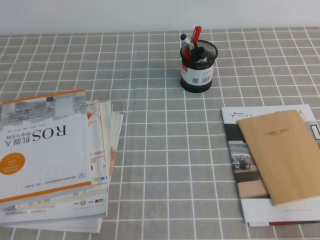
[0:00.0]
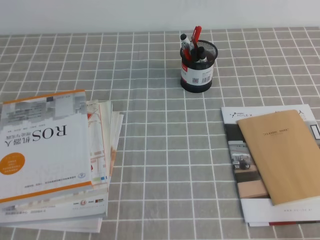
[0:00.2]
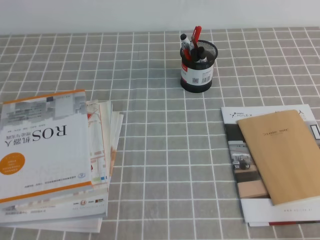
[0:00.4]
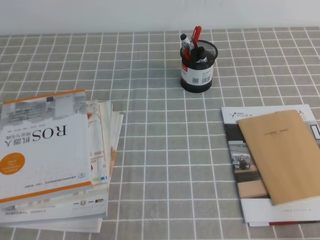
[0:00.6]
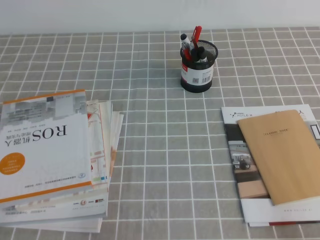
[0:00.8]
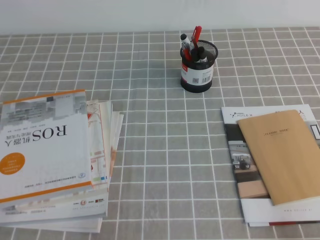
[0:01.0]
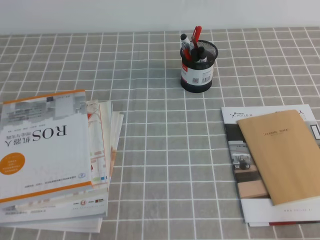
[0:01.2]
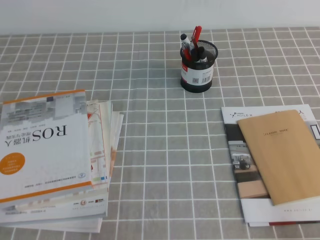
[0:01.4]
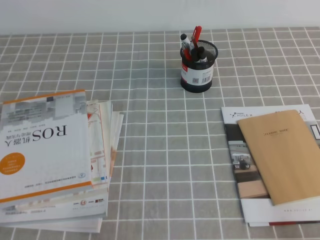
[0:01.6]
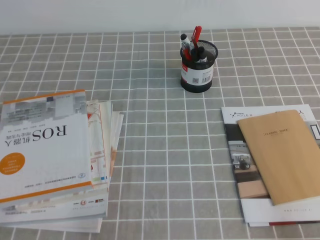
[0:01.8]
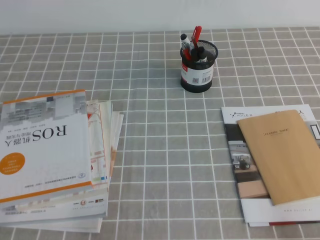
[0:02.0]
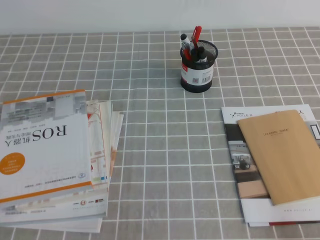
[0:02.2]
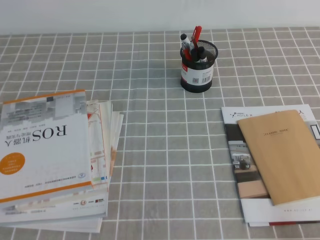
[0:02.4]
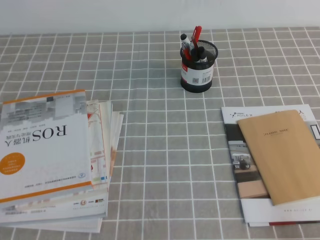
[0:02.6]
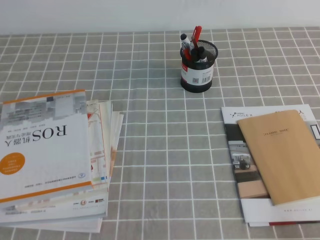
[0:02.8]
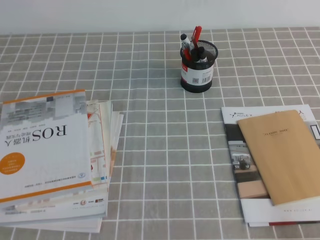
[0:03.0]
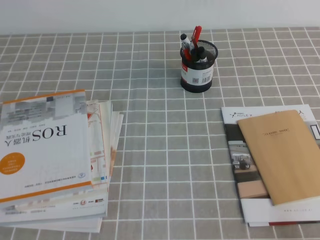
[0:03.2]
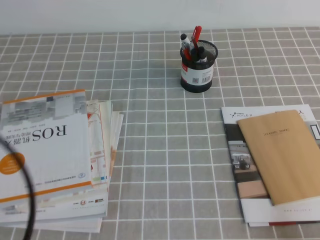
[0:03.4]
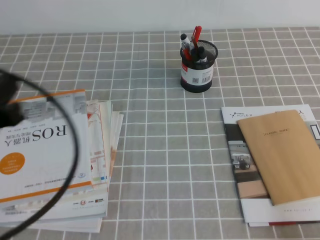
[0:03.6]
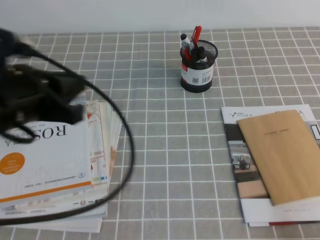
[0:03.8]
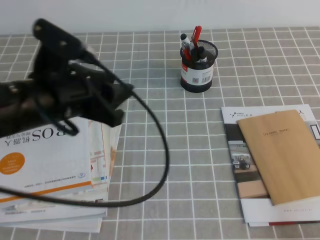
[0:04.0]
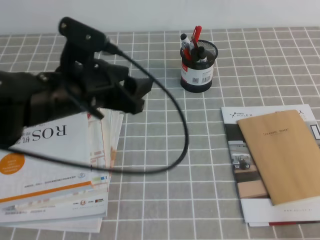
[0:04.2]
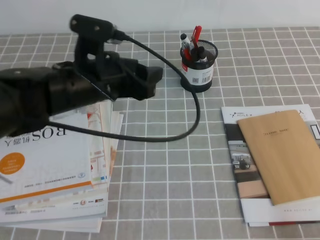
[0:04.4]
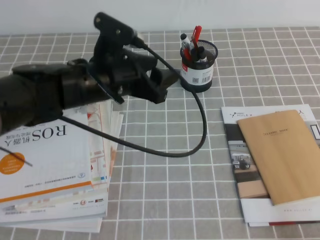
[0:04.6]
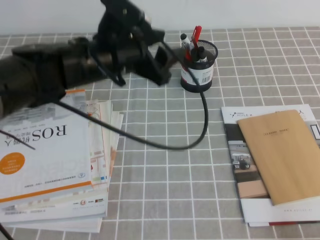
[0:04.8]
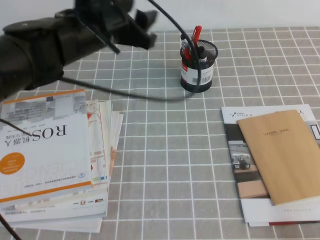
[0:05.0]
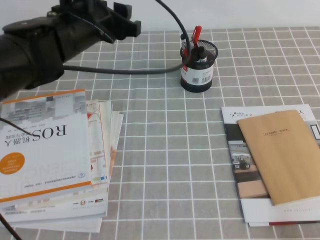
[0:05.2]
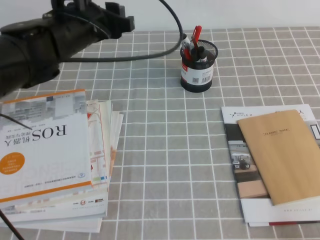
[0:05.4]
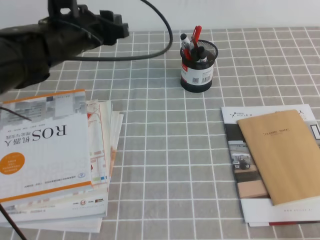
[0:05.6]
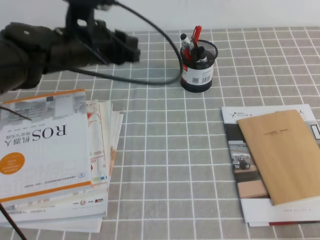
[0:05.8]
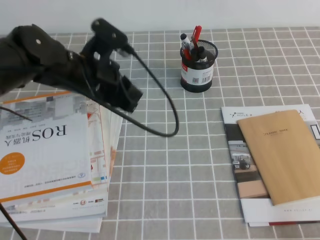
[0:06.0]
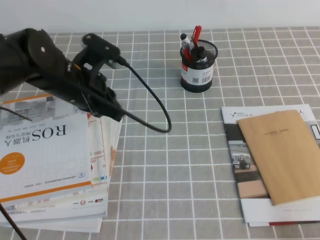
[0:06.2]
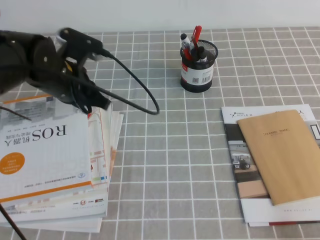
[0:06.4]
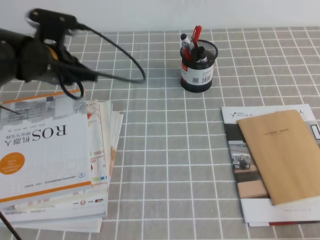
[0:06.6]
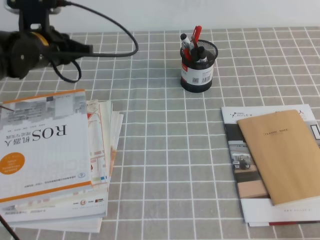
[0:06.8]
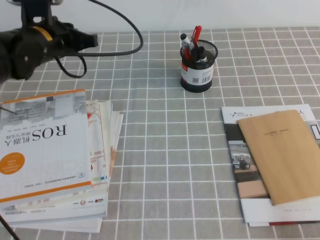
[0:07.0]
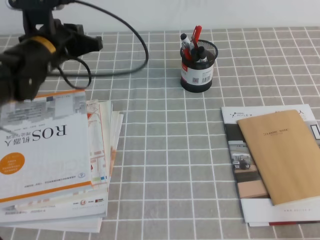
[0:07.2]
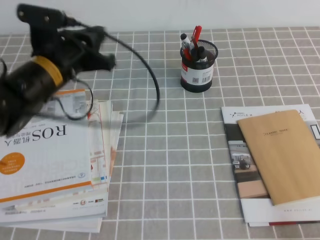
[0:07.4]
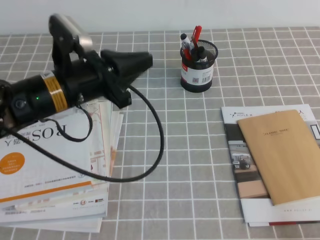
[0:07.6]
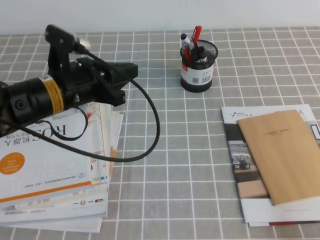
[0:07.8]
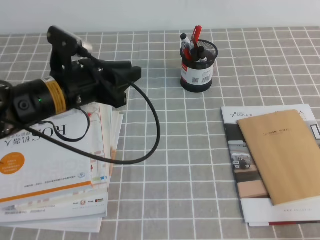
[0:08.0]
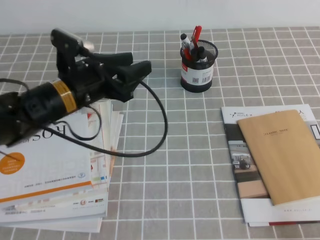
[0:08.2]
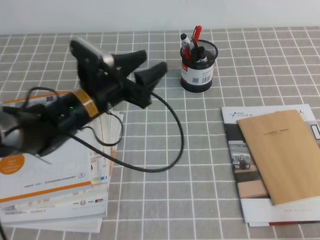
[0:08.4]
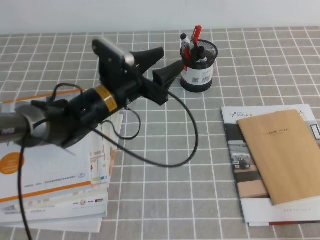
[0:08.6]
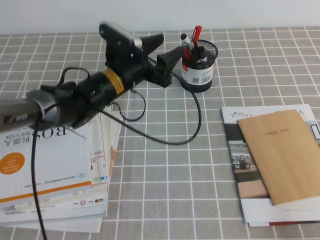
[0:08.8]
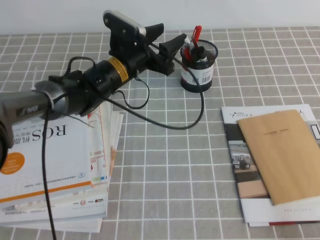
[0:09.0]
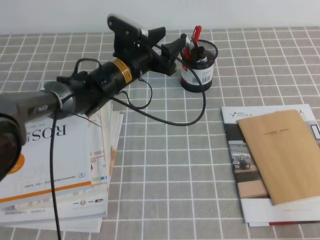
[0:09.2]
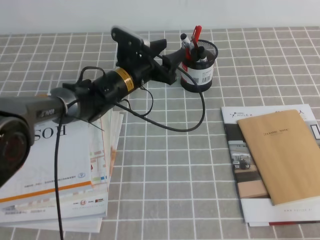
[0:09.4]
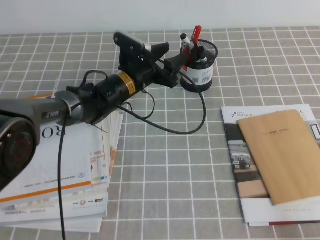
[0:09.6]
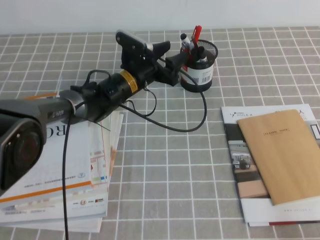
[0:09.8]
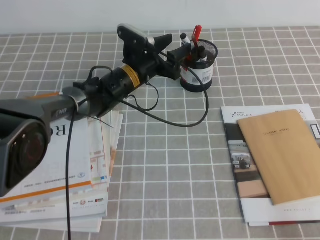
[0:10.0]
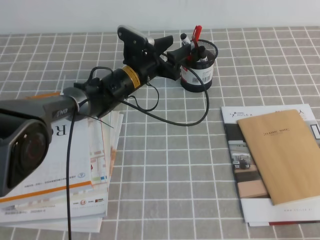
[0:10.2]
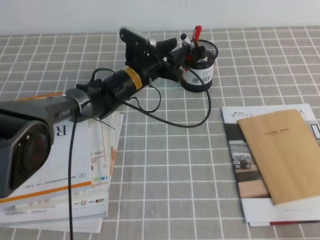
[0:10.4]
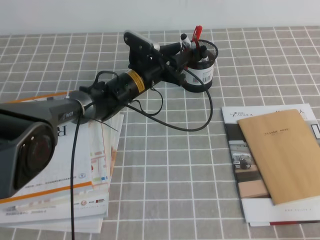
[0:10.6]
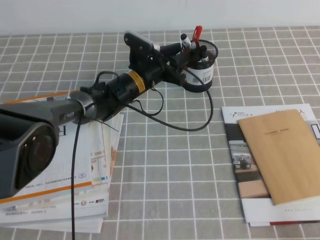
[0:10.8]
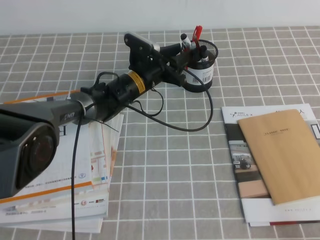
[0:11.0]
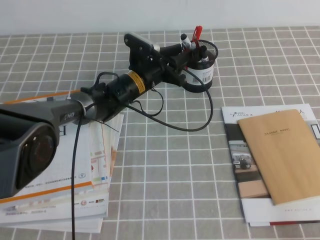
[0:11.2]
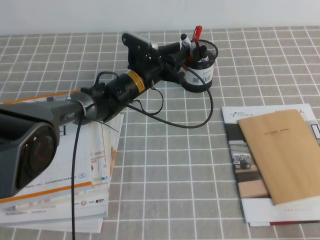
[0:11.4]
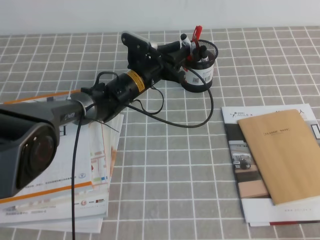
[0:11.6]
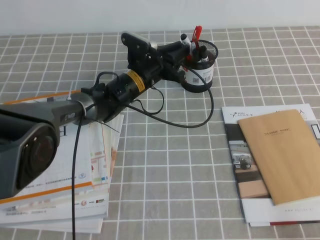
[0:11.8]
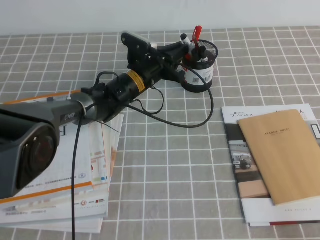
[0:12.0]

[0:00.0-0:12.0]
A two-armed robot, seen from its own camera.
0.0 to 1.6 s: The two grippers keep their place.
3.0 to 4.4 s: The left gripper heads forward and to the right, covering approximately 30 cm, and opens.
4.4 to 6.0 s: The left gripper travels forward by roughly 5 cm, and closes up.
7.6 to 9.0 s: The left gripper moves forward, to the right and downward, some 15 cm, and opens its fingers.
9.0 to 10.4 s: The left gripper shifts by some 5 cm.
10.4 to 12.0 s: The left gripper closes up.

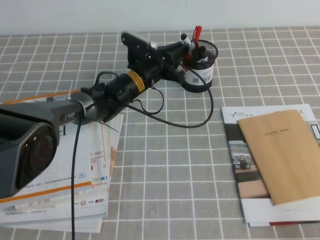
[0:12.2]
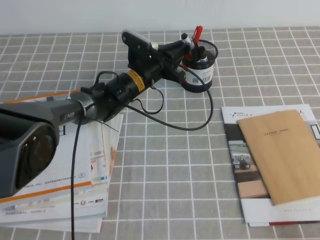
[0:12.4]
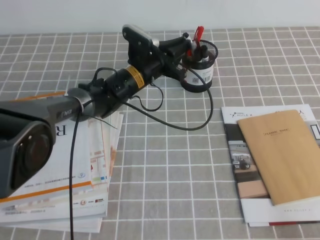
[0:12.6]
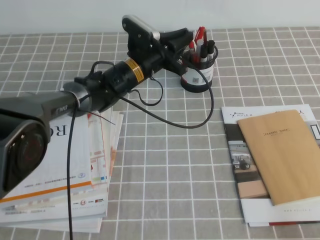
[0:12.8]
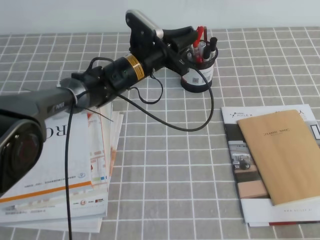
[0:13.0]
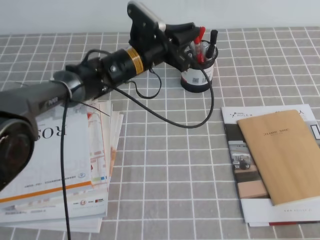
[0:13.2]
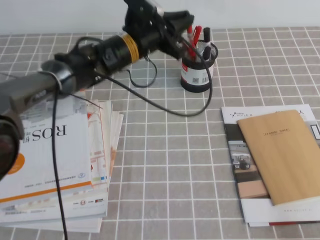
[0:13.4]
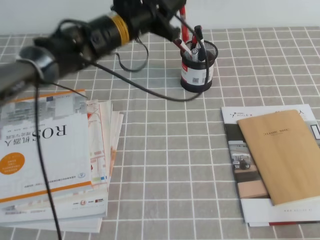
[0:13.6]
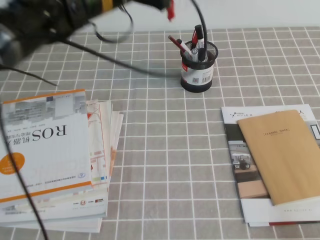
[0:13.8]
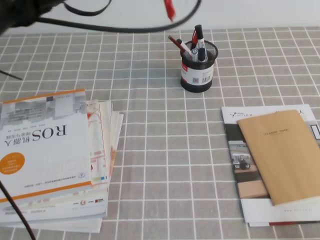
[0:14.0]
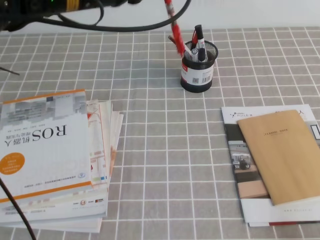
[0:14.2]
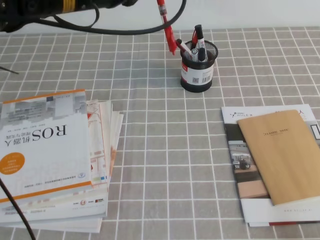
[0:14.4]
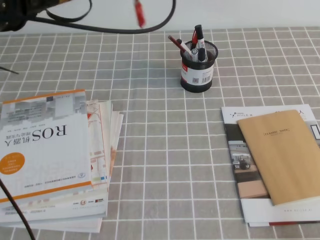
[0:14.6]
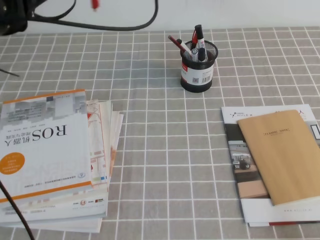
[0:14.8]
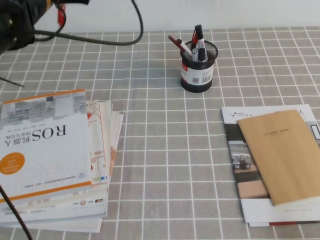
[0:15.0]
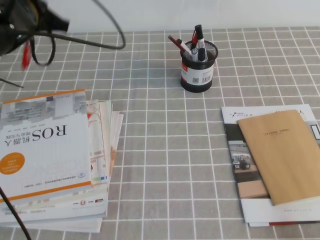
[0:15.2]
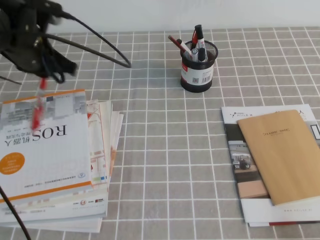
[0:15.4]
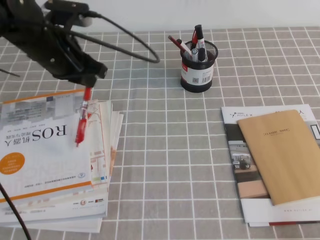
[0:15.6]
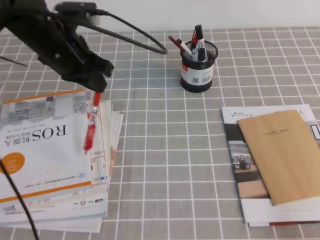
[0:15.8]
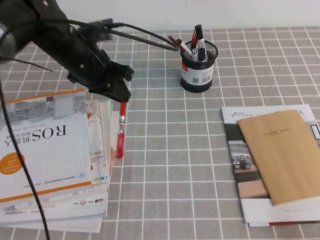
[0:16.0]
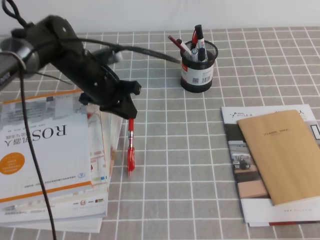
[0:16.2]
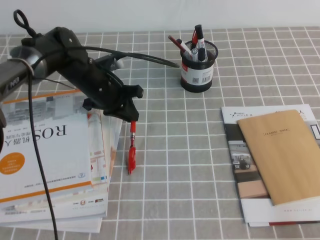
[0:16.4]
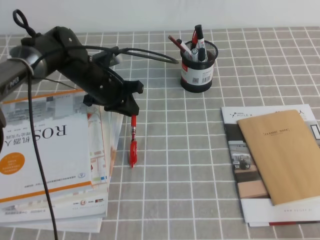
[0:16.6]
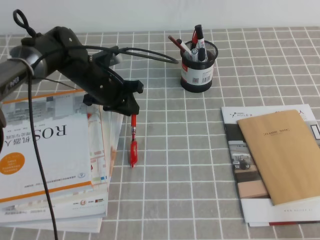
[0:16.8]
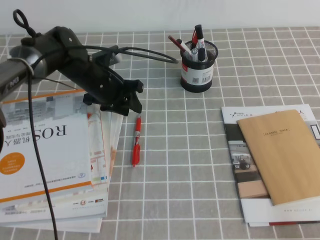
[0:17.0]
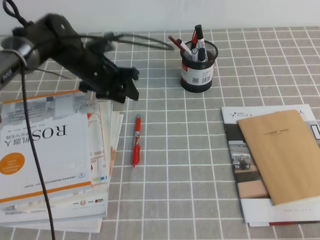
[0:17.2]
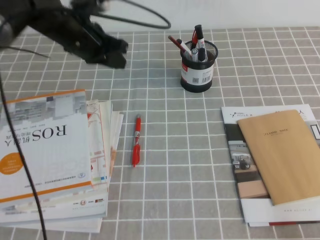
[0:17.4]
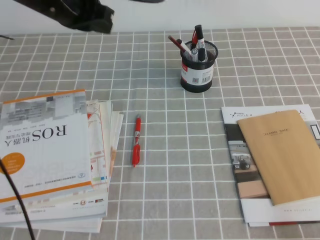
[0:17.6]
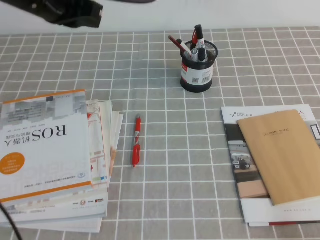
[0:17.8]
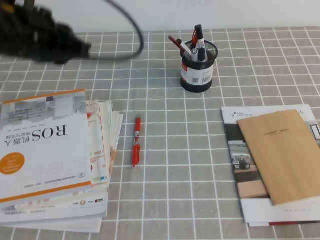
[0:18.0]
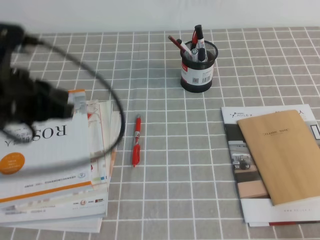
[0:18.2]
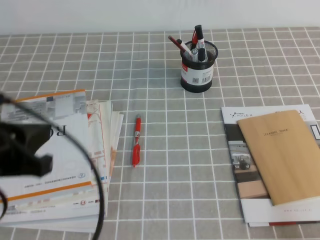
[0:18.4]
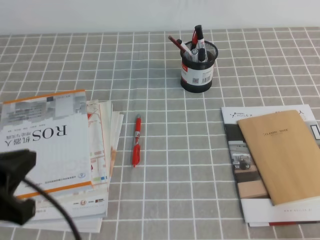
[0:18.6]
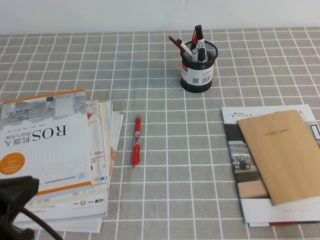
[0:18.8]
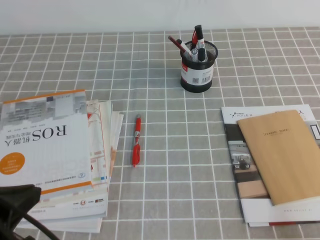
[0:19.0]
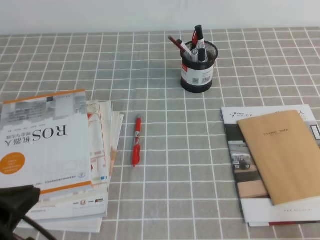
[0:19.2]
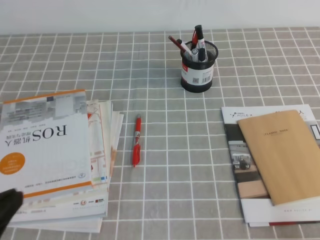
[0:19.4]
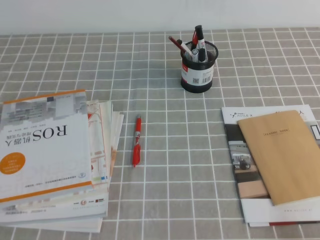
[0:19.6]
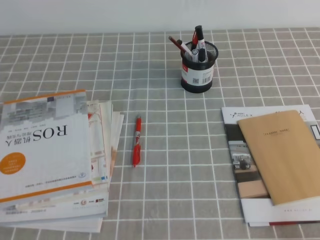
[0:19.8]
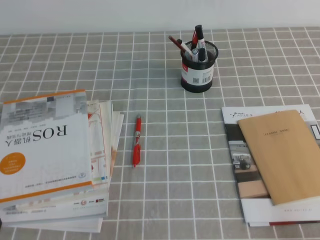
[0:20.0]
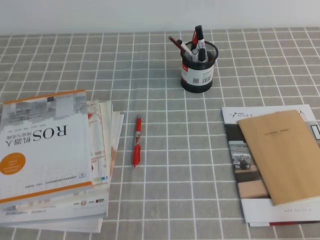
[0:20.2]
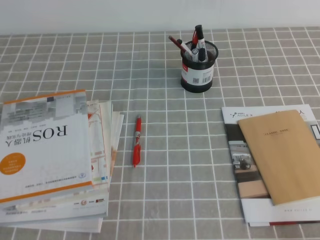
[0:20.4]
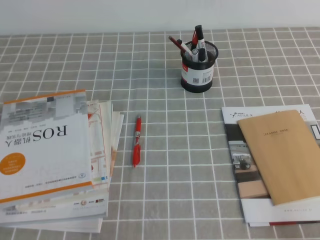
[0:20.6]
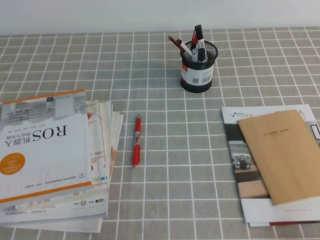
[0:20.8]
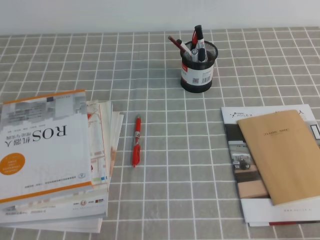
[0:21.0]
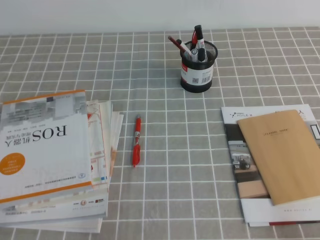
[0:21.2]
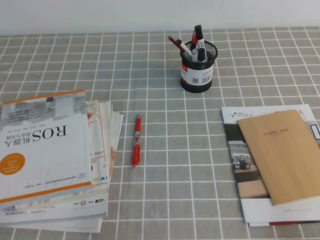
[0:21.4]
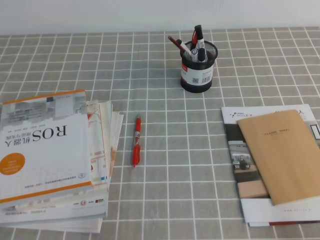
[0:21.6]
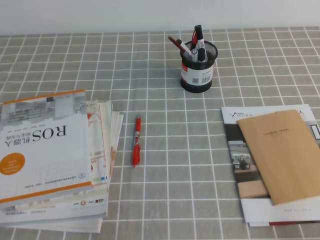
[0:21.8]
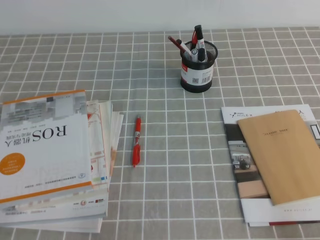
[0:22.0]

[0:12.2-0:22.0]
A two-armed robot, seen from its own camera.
Step, 12.2 to 22.0 s: Pick up the pen from the pen holder.
12.2 to 13.6 s: The left gripper heads upward, covering about 15 cm.
13.6 to 15.0 s: The left gripper shifts roughly 15 cm to the left and upward.
15.0 to 16.4 s: The left gripper heads downward, covering about 15 cm.
16.4 to 17.8 s: The left gripper travels upward by approximately 20 cm, and opens, then closes again.
17.8 to 19.2 s: The left gripper moves backward, some 30 cm.
19.2 to 20.6 s: The left gripper is displaced downward by roughly 10 cm.
20.6 to 22.0 s: Neither gripper changes place.

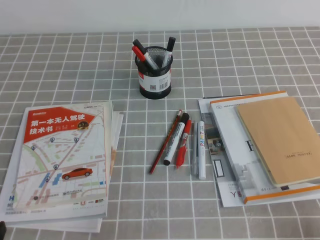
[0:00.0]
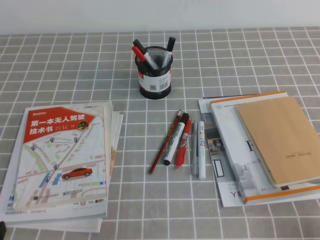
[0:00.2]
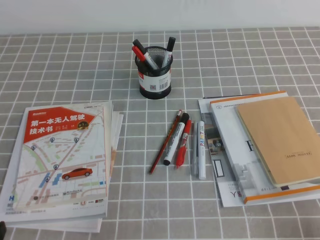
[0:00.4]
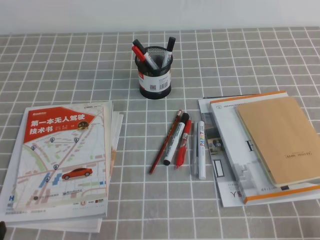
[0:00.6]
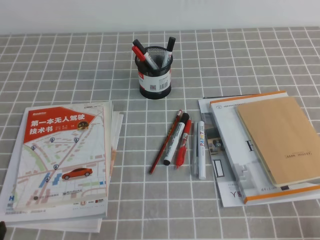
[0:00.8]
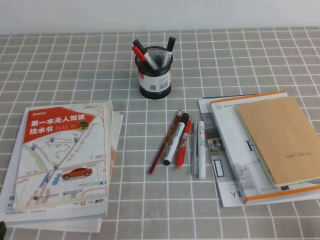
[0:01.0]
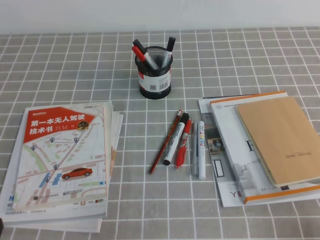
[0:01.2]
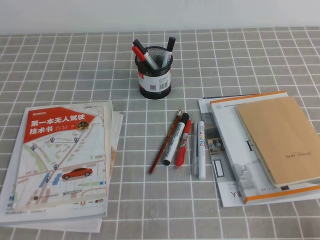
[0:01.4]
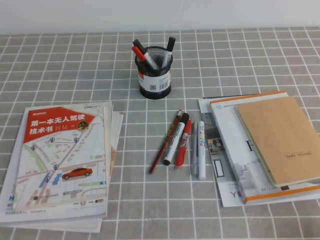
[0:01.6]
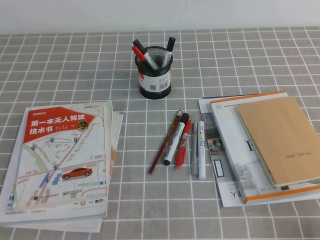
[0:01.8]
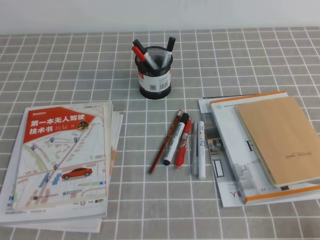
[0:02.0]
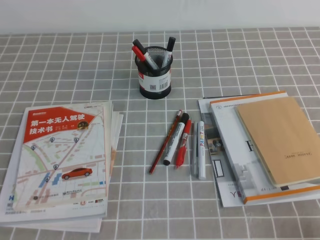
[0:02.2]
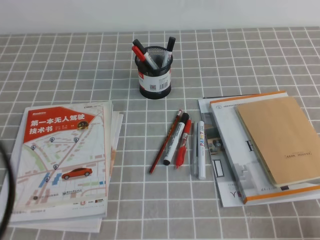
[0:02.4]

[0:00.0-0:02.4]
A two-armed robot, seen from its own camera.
1.2 to 2.4 s: The left gripper moves upward, approximately 15 cm.
